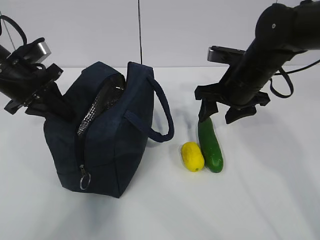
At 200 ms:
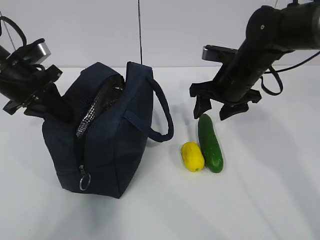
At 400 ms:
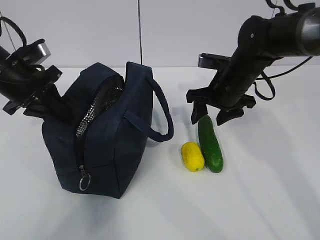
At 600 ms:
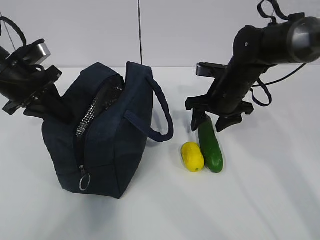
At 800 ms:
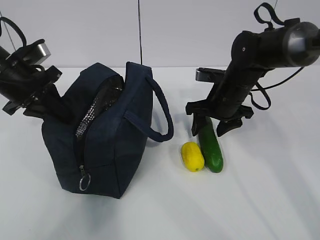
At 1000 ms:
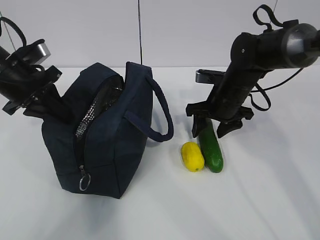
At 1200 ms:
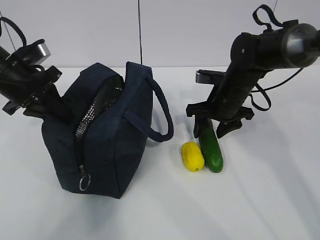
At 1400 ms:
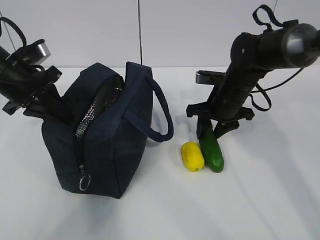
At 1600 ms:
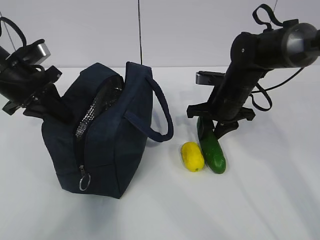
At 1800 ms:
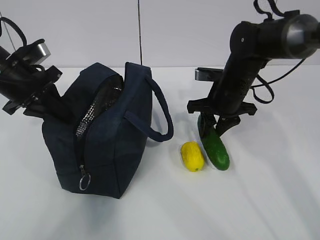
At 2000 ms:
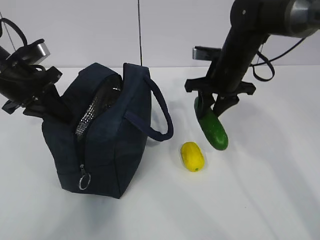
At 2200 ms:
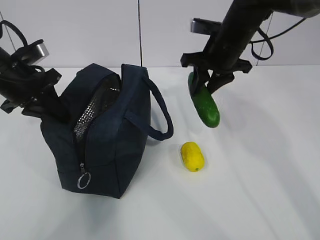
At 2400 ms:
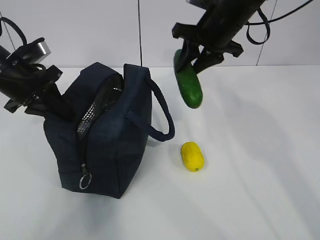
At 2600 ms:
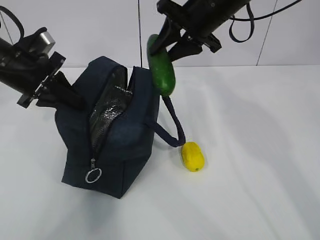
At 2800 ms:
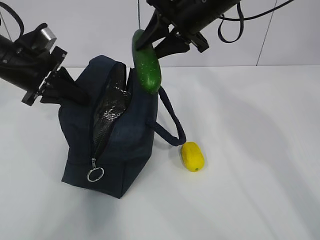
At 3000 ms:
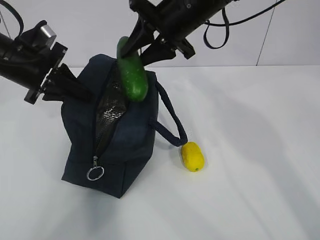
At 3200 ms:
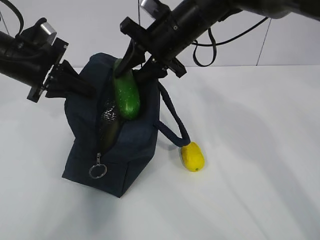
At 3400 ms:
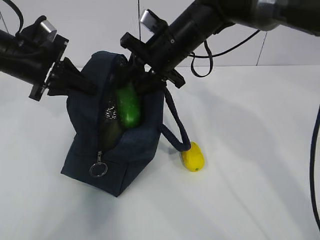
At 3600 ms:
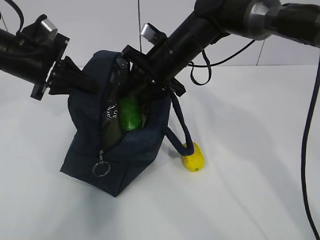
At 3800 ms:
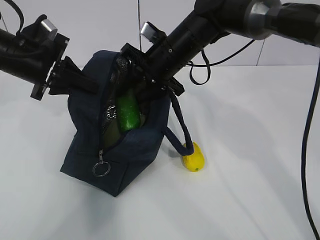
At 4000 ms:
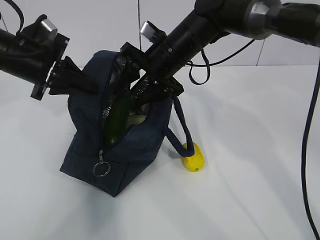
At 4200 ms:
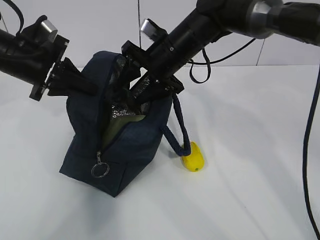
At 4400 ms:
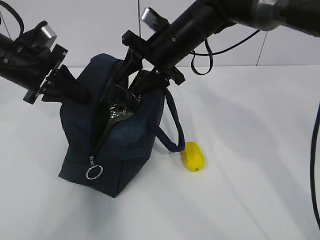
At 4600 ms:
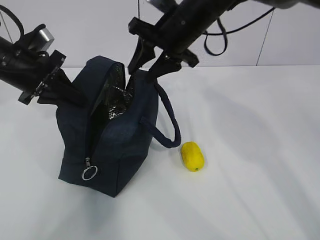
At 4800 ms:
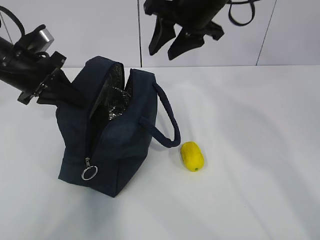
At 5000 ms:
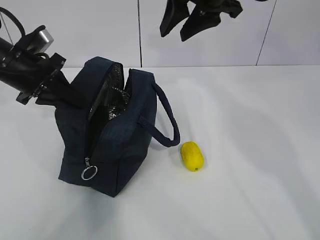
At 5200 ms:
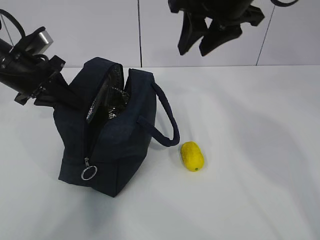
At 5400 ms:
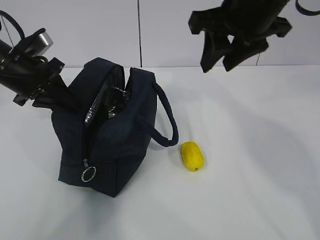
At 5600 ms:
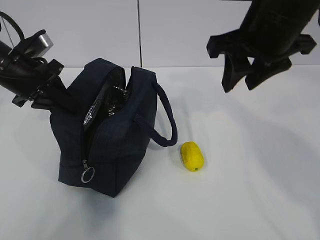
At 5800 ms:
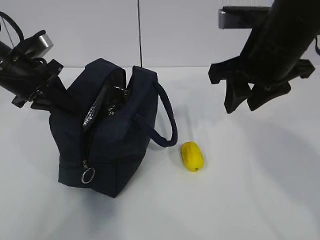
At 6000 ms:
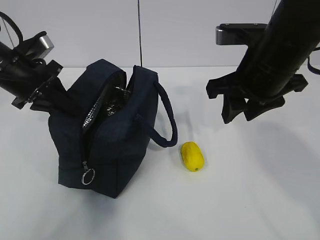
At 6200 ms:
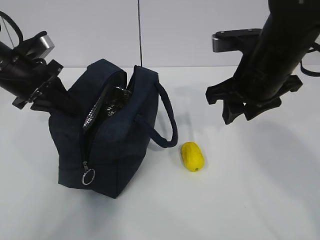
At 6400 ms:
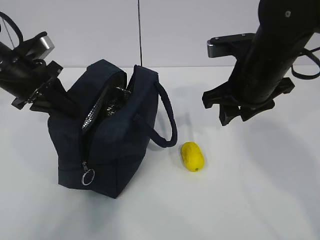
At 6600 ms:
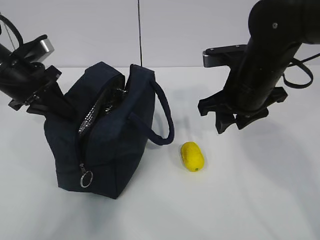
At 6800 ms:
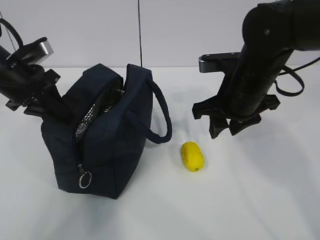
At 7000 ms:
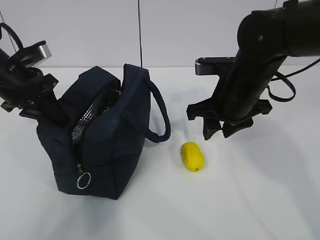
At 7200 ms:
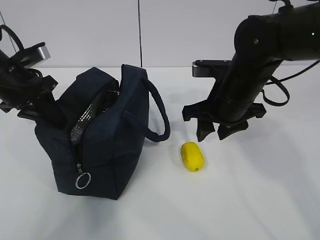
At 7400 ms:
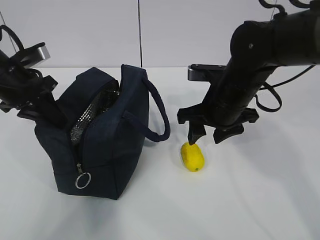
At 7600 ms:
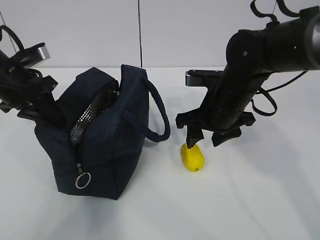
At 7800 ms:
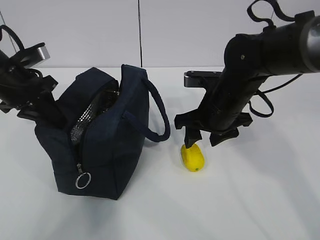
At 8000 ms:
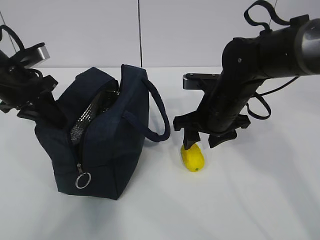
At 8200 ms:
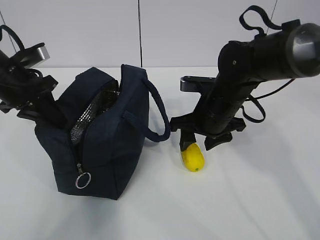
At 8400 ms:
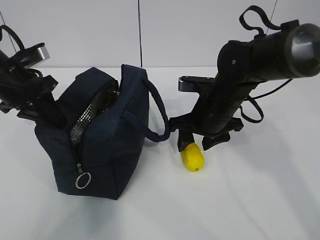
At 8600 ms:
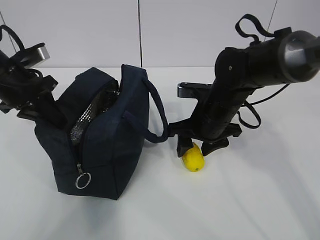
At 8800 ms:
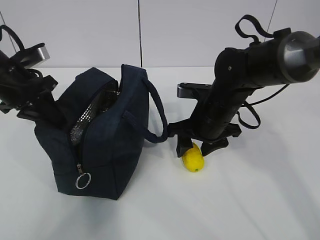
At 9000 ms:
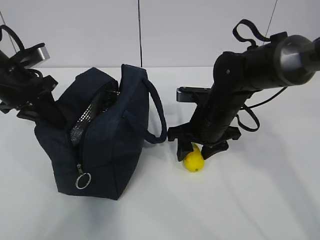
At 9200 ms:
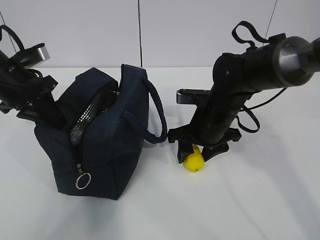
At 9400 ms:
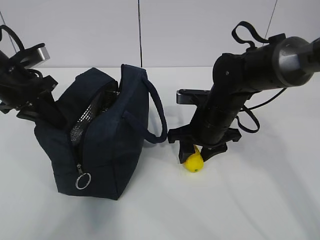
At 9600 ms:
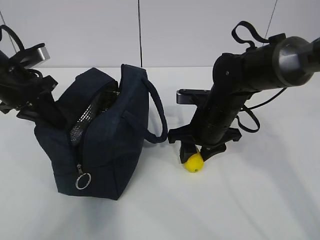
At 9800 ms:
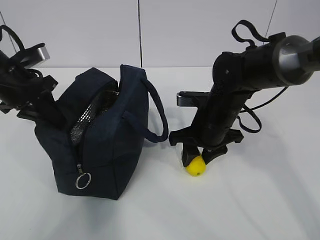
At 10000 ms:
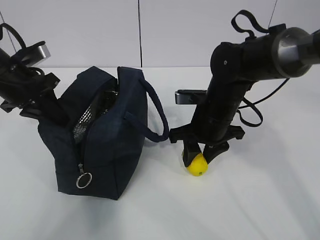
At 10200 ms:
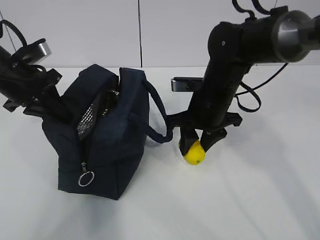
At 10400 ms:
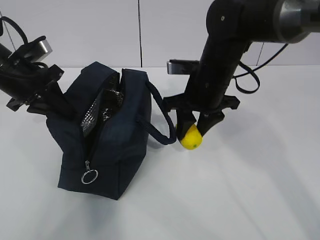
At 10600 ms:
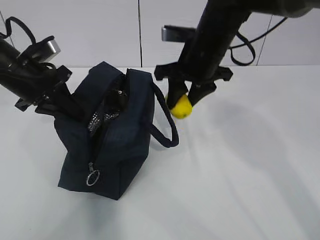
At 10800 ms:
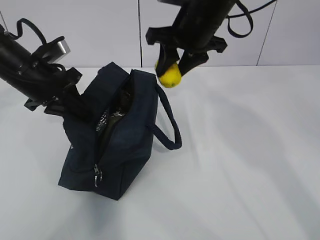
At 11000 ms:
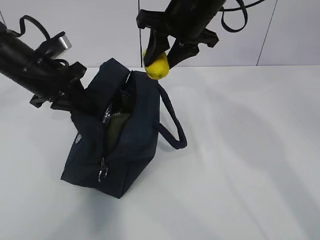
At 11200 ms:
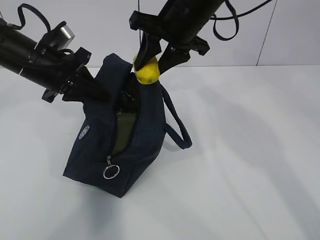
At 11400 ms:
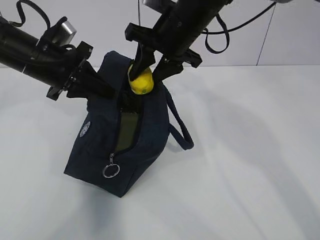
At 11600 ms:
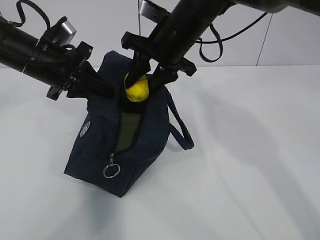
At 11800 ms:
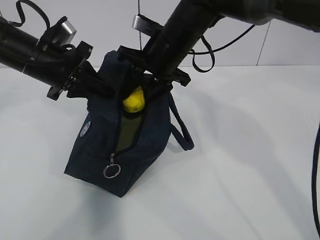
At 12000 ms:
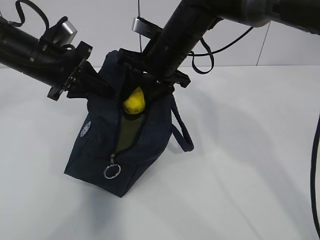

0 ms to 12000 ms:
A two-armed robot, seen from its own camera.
Step, 0 ms to 4000 ms: Grab the lemon with your right hand.
Step, 6800 ms to 8400 ms: Grab the lunch bag with your right hand.
Step, 8600 ms to 10400 ms: Move the lunch bag to the right.
0 ms to 1600 ms: The right gripper heads downward, covering roughly 5 cm, and closes its fingers.
1600 ms to 3000 ms: The right gripper is displaced upward and to the left by roughly 20 cm.
3000 ms to 4400 ms: The right gripper goes some 5 cm downward.
4400 ms to 6000 ms: The right gripper travels backward and to the right by roughly 15 cm.
6000 ms to 7600 ms: The right gripper travels downward by approximately 10 cm.
7600 ms to 9000 ms: There are only small adjustments of the grippers.
9000 ms to 10400 ms: The right gripper moves upward, some 5 cm.
10400 ms to 12000 ms: The left gripper goes some 5 cm to the right, while the right gripper heads to the left, covering about 5 cm.

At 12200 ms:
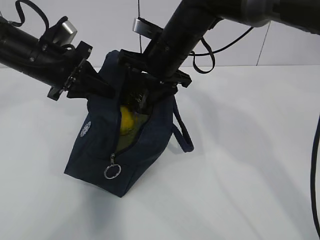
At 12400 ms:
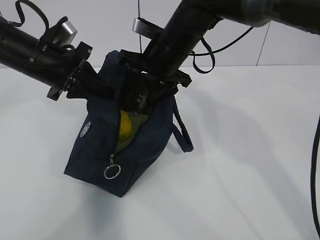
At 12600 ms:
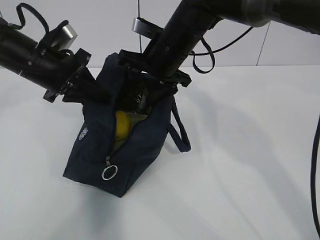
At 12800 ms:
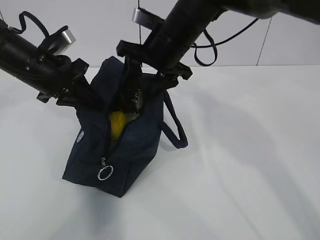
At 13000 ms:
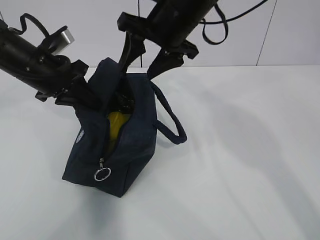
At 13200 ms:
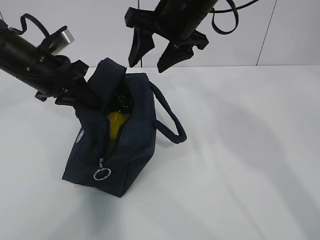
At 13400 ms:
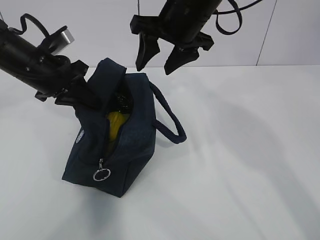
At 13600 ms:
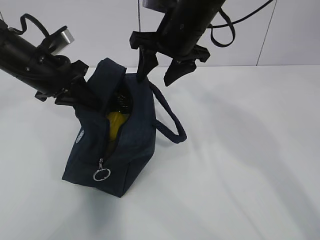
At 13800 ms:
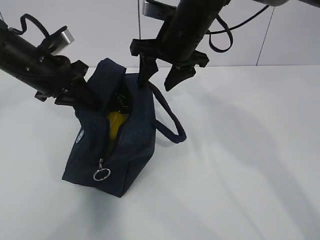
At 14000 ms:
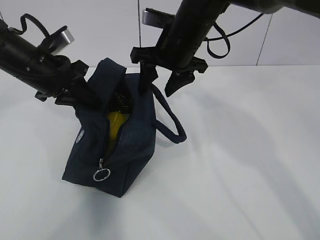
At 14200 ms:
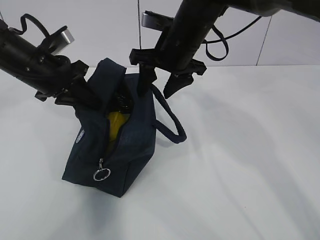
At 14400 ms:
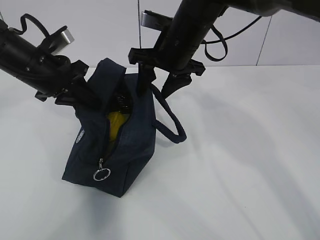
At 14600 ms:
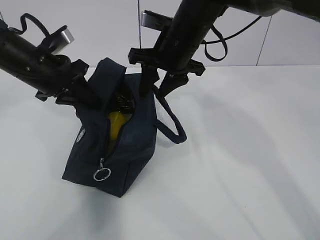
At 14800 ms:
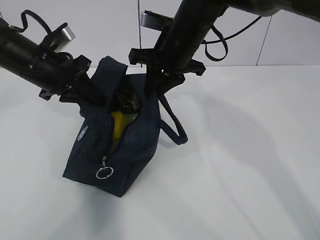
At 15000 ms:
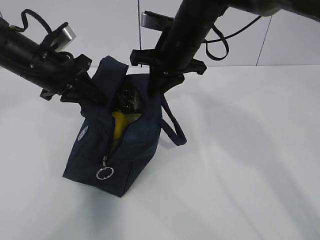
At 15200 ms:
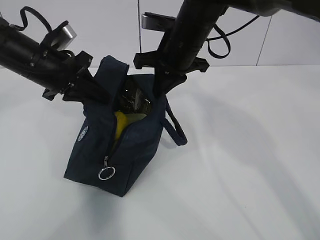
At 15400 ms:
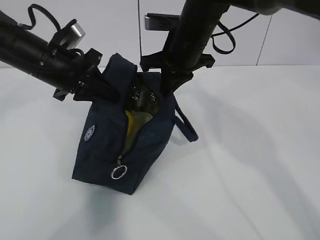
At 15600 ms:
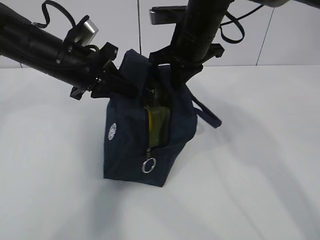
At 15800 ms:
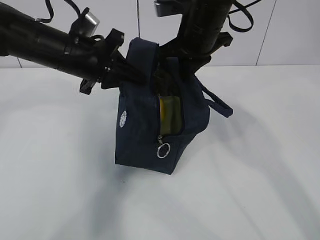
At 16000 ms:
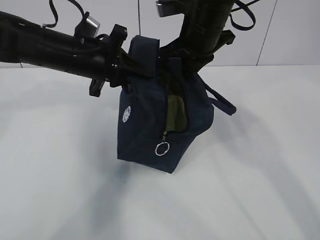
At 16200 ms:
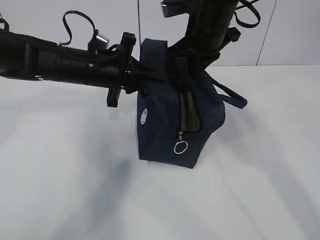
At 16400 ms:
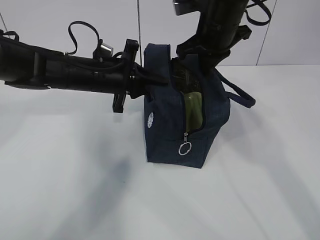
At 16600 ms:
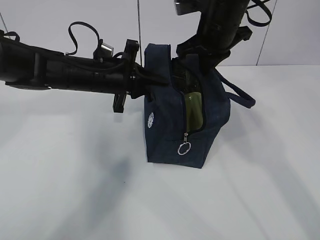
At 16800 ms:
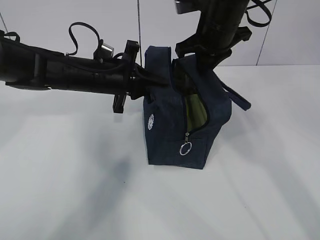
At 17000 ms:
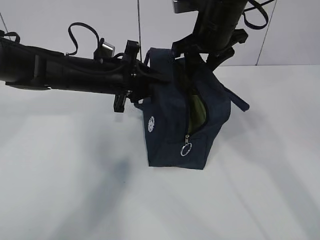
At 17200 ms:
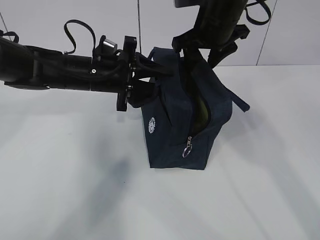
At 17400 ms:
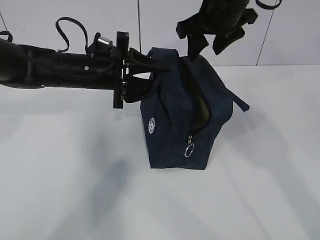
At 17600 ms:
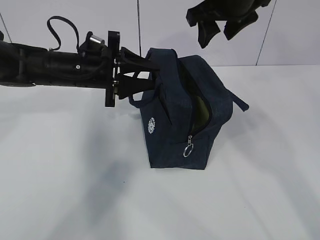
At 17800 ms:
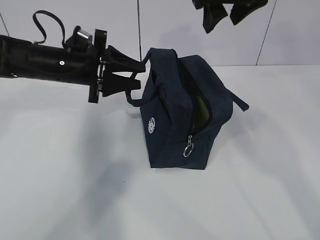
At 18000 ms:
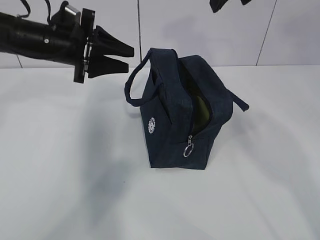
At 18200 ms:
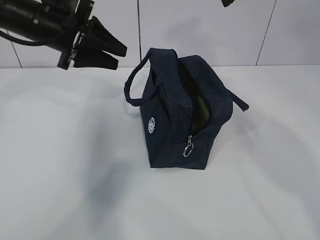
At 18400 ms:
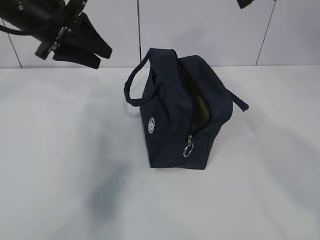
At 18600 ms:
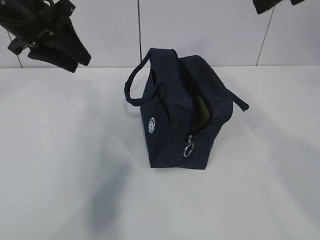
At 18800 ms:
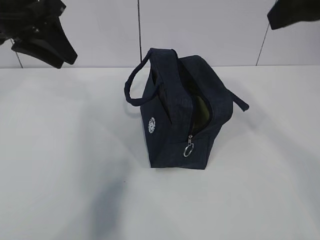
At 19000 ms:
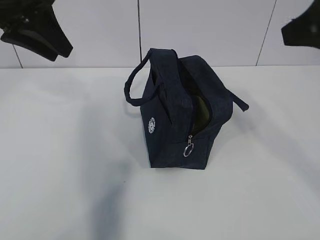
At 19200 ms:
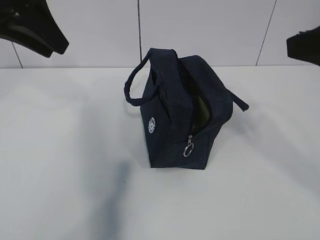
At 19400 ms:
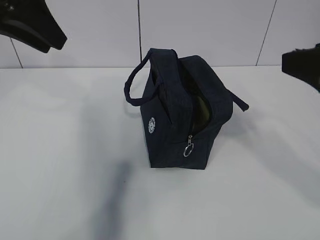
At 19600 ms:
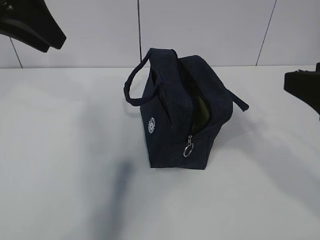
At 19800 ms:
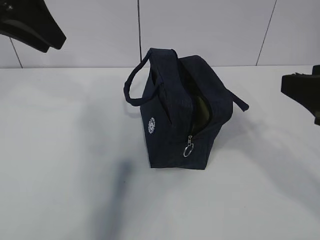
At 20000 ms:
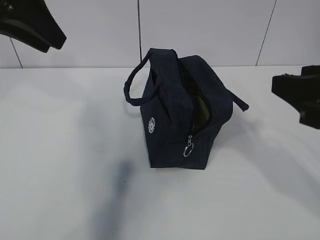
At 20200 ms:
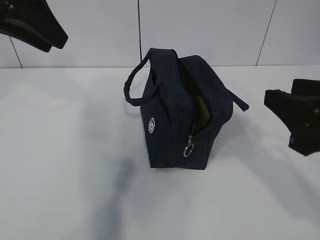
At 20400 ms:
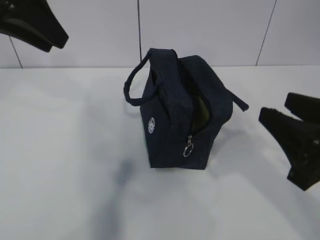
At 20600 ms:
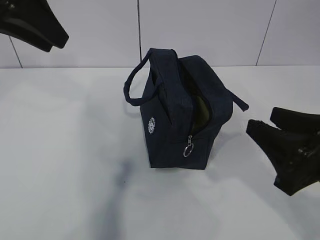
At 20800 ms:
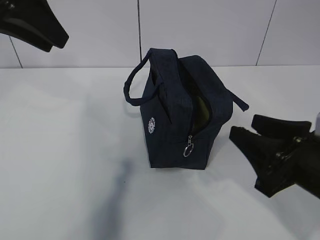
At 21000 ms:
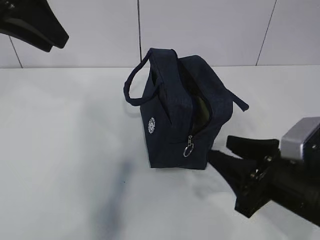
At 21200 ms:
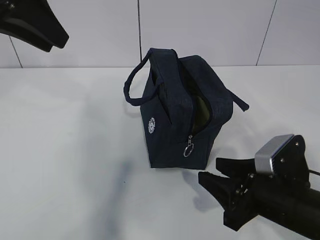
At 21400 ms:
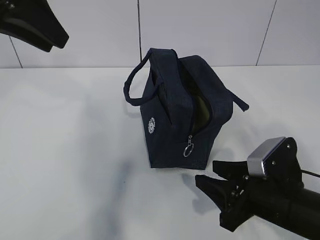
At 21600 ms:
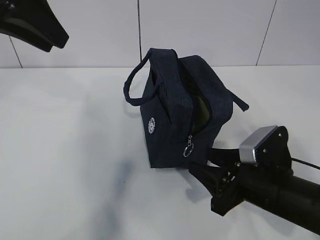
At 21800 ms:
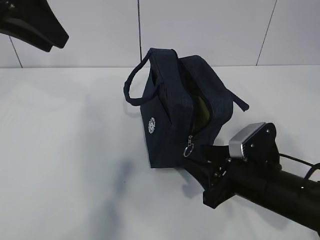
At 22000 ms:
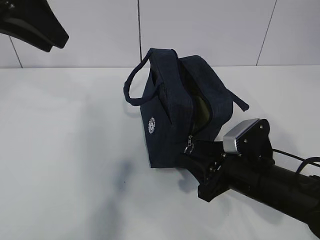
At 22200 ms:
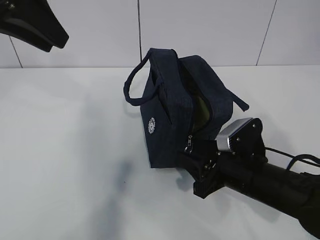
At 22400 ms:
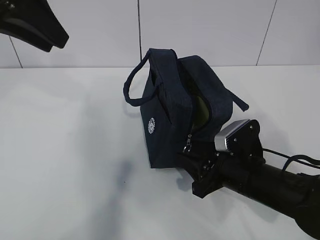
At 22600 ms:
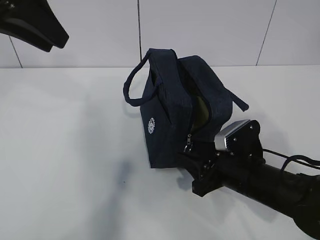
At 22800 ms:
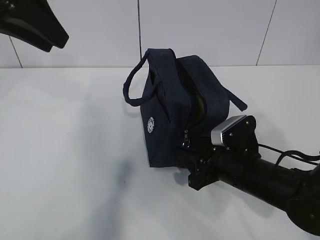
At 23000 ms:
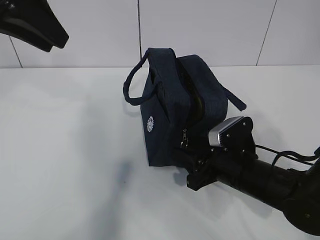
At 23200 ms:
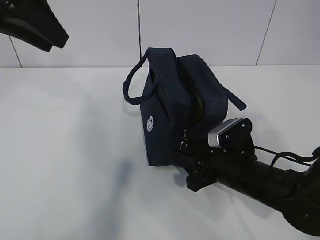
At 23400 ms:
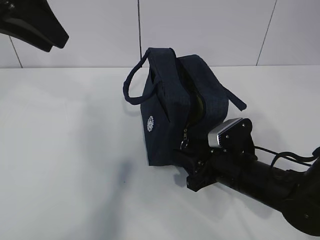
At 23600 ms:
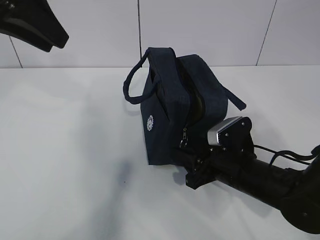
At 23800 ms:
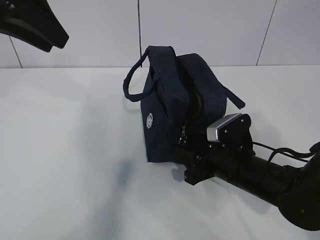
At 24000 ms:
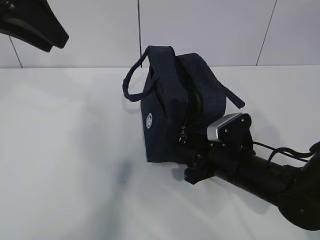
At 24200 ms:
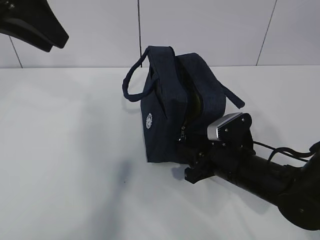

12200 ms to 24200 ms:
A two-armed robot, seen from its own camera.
13800 ms to 15200 ms: The right gripper closes up.
15200 ms to 16600 ms: The two grippers go approximately 5 cm to the right.
16600 ms to 18200 ms: The right gripper travels upward and backward by some 15 cm, and opens up. The left gripper shifts approximately 10 cm upward and to the left, and opens its fingers.
18200 ms to 19800 ms: The right gripper is displaced backward and downward by about 20 cm. The left gripper travels upward and backward by approximately 15 cm.
19800 ms to 21200 ms: The right gripper moves downward, approximately 20 cm.
21200 ms to 22600 ms: The right gripper heads forward, covering some 5 cm.
22600 ms to 24200 ms: The grippers make only small movements.
